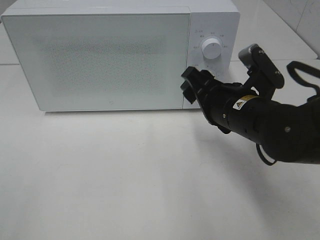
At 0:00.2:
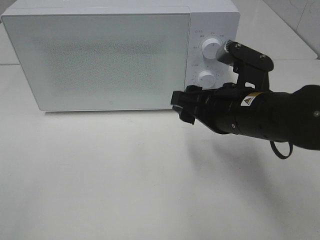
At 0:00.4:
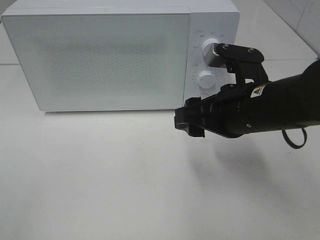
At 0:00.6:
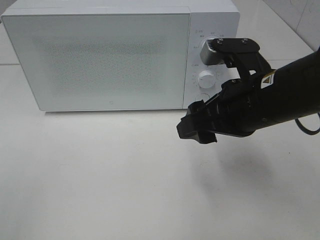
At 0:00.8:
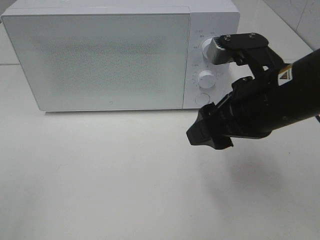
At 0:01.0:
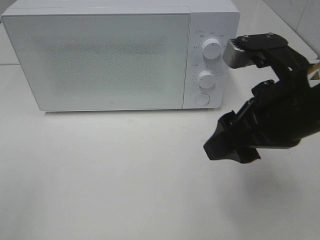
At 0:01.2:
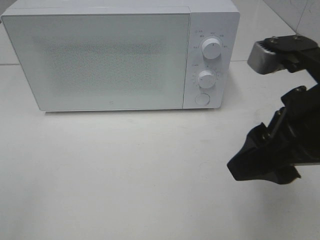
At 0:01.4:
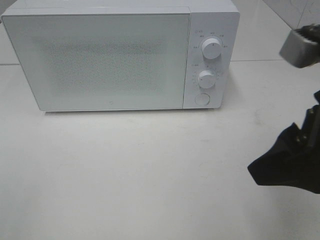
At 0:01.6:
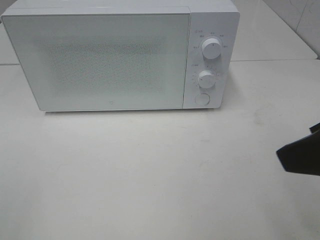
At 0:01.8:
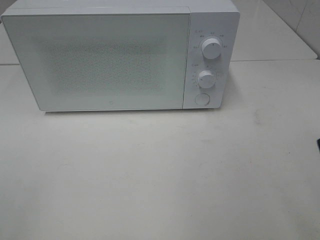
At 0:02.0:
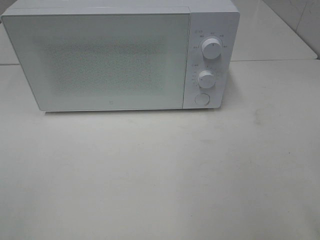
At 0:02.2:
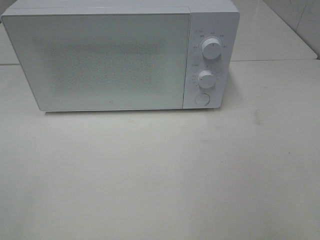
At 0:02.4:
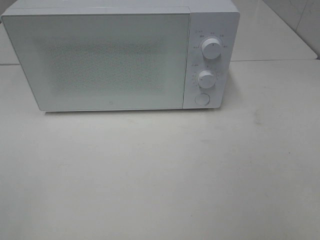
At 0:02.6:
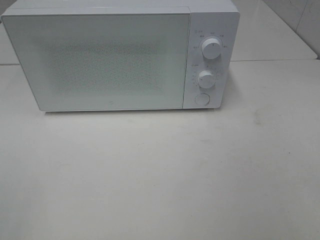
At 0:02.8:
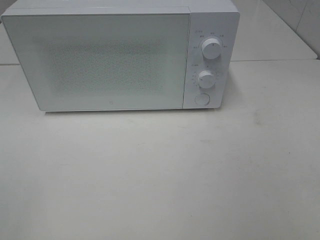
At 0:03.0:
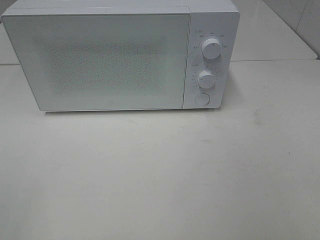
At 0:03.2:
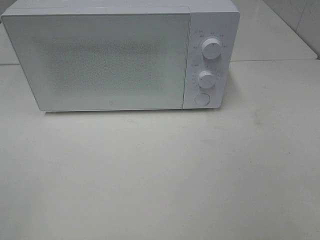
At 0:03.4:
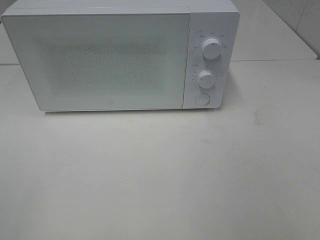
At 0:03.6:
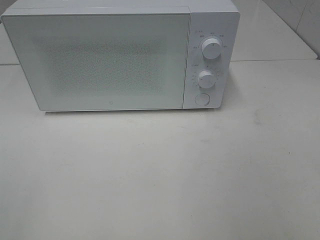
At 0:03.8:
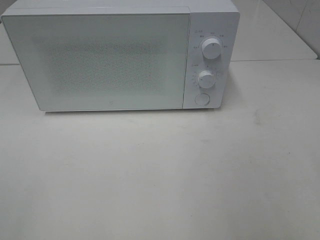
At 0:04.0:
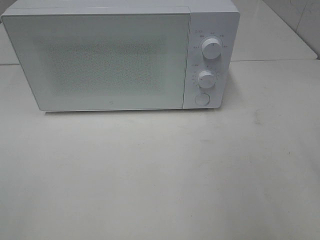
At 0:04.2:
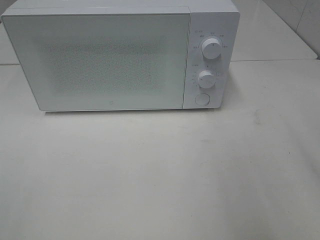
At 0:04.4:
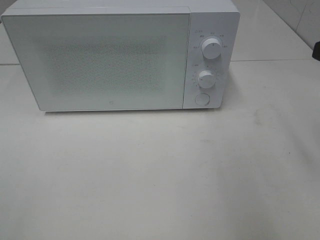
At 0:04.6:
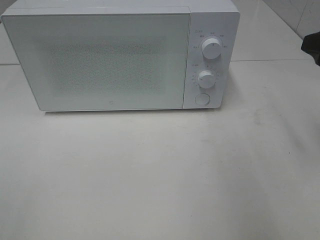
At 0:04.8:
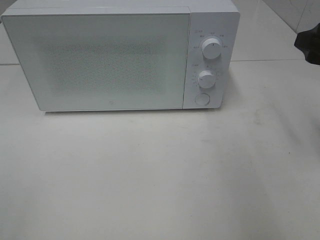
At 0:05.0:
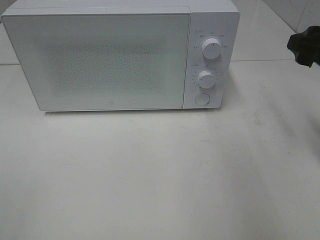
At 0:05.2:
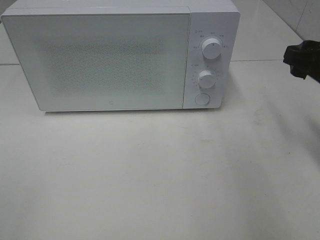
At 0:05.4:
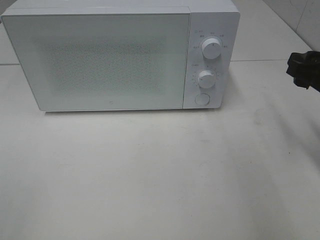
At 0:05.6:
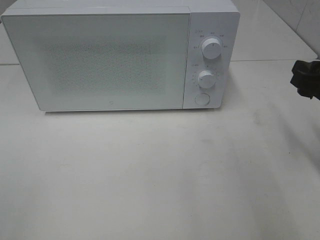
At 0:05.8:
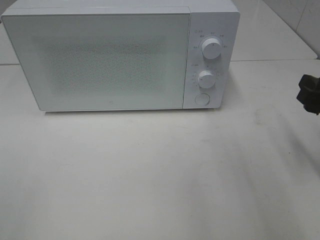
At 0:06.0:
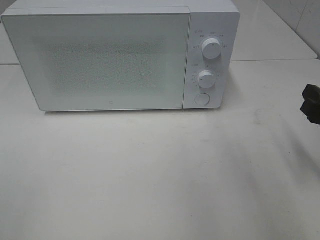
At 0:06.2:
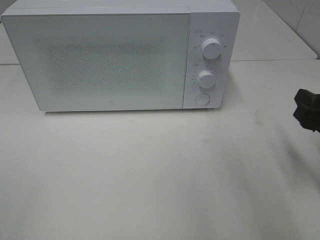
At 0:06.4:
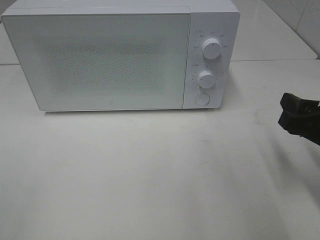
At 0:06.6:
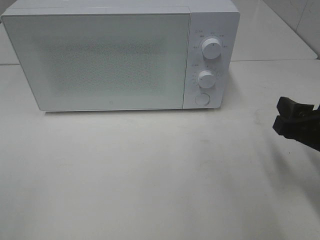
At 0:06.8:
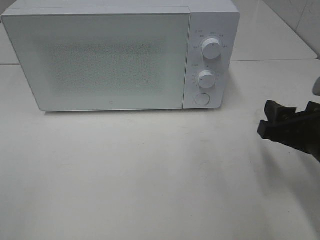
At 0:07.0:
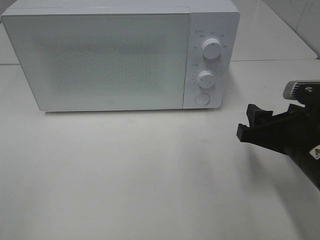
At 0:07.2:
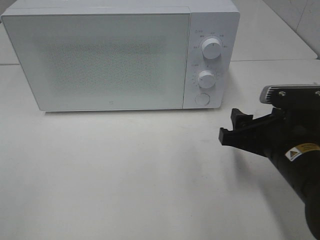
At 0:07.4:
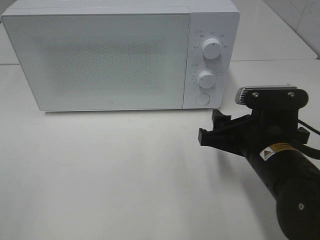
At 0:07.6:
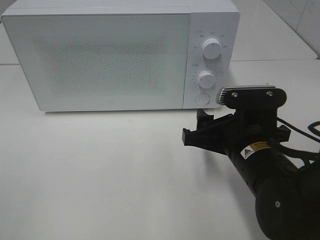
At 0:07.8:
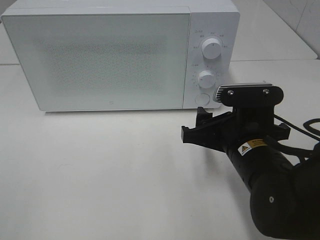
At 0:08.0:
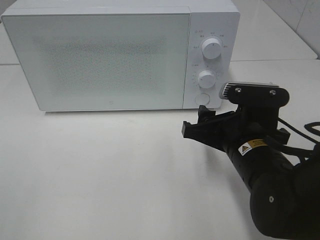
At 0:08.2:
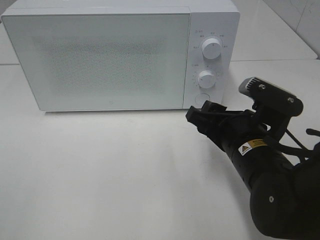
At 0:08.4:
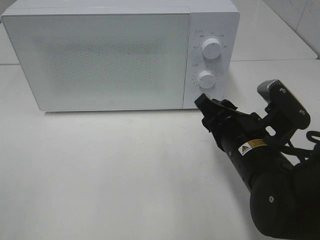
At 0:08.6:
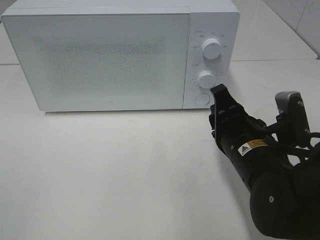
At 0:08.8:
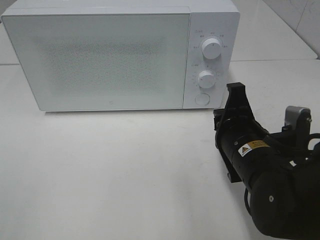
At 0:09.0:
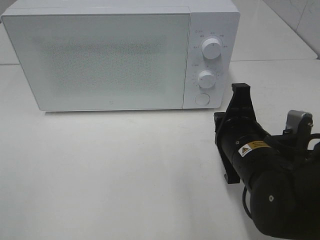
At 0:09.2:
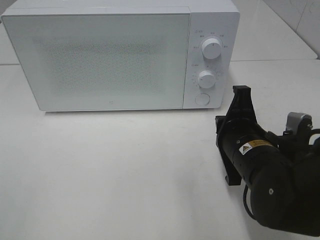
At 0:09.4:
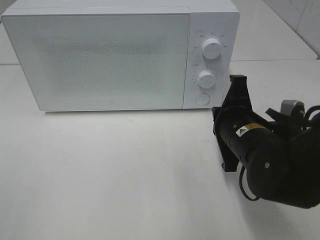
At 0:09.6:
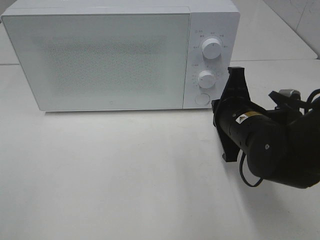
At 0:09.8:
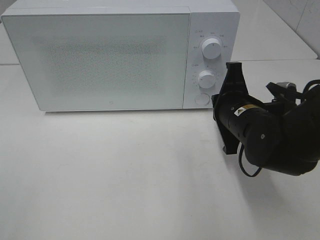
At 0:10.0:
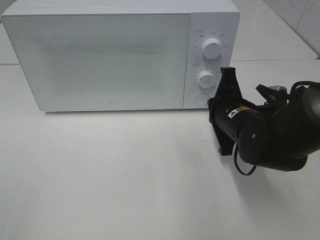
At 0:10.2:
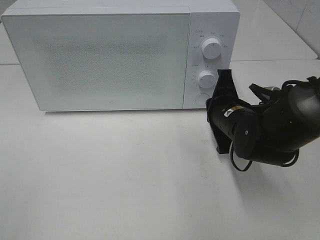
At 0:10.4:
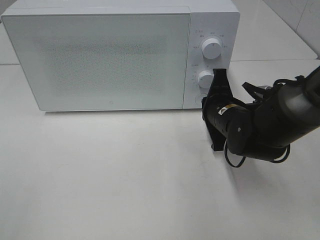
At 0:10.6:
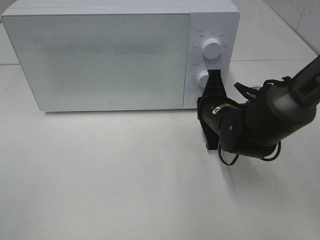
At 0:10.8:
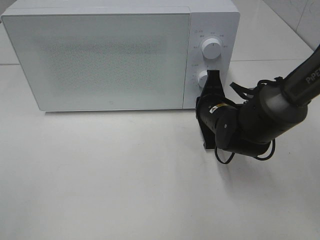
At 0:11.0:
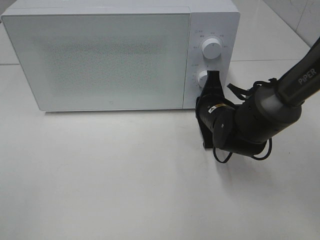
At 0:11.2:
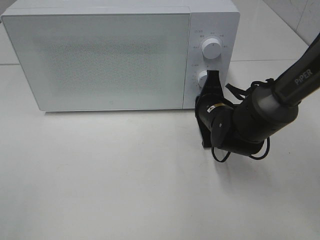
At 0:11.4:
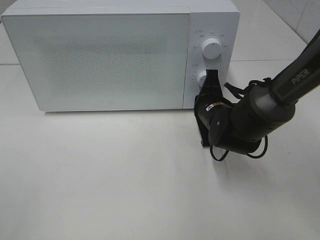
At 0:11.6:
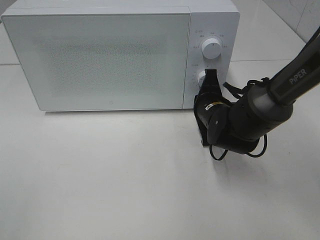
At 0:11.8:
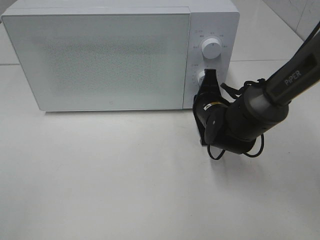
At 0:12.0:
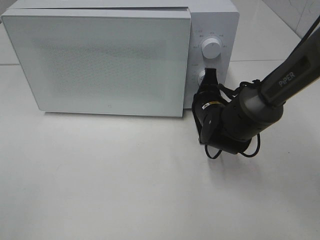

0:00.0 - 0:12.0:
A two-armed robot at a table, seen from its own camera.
Task of the whole recording: Heat the burger.
0:00.0 - 0:01.6: The right gripper heads backward, upward and to the right, covering roughly 20 cm.
0:01.6 - 0:03.0: The right gripper is displaced backward and to the right by approximately 15 cm.
0:04.4 - 0:06.0: The right gripper is displaced downward by roughly 10 cm.
0:06.0 - 0:07.6: The right gripper is displaced to the left by about 15 cm.
0:07.6 - 0:09.0: The right gripper closes.
0:09.0 - 0:10.4: The right gripper moves forward, roughly 10 cm.
0:10.4 - 0:12.0: The grippers make only small movements.

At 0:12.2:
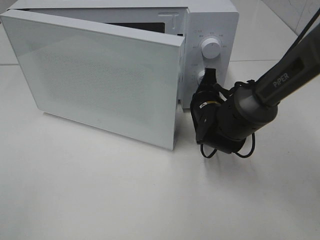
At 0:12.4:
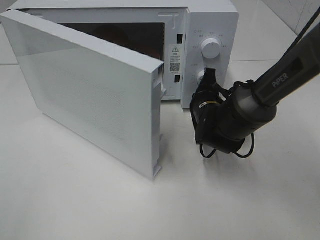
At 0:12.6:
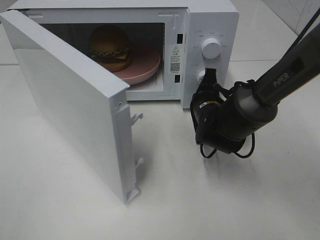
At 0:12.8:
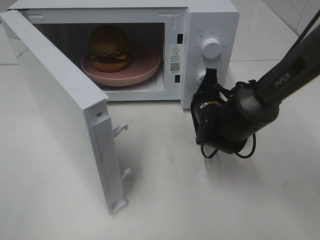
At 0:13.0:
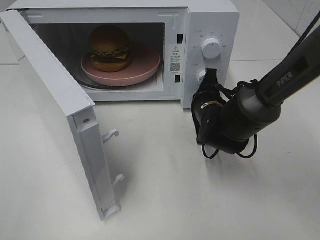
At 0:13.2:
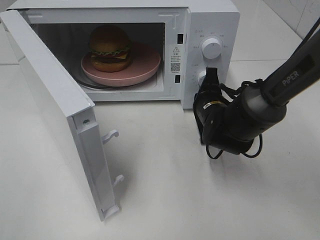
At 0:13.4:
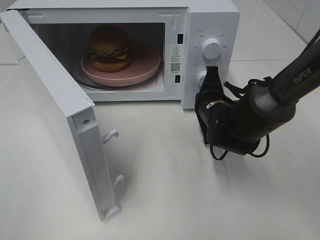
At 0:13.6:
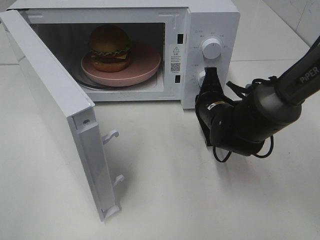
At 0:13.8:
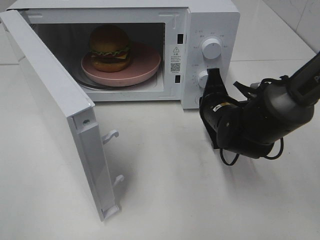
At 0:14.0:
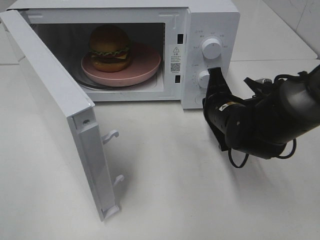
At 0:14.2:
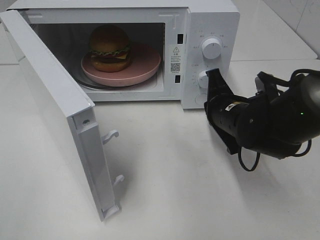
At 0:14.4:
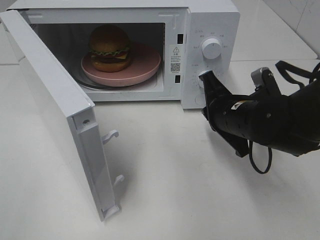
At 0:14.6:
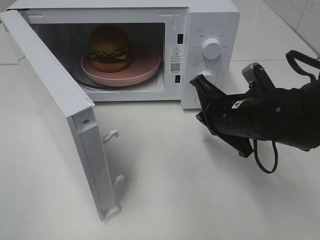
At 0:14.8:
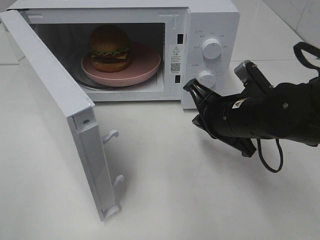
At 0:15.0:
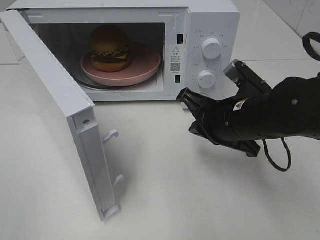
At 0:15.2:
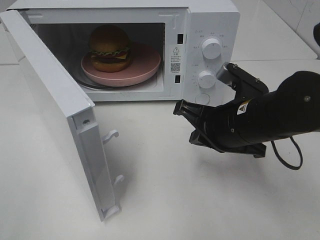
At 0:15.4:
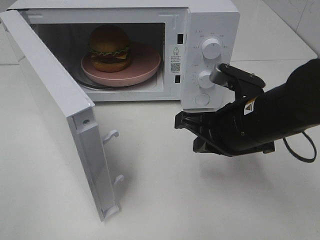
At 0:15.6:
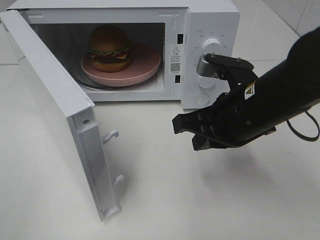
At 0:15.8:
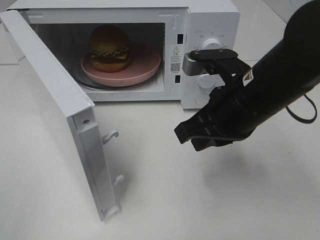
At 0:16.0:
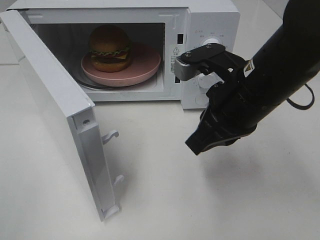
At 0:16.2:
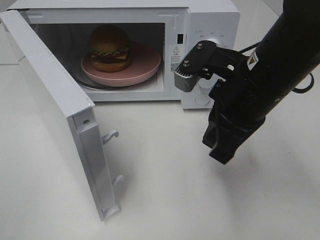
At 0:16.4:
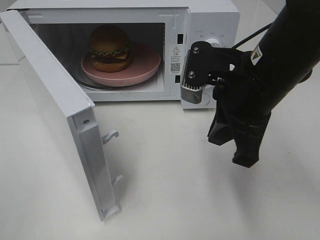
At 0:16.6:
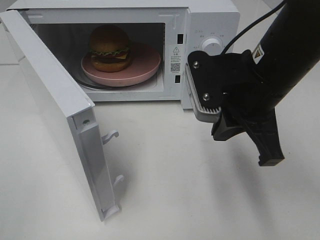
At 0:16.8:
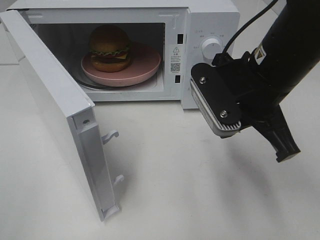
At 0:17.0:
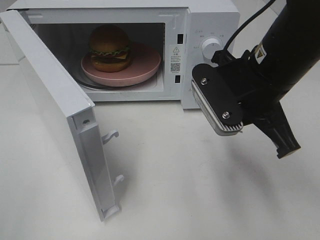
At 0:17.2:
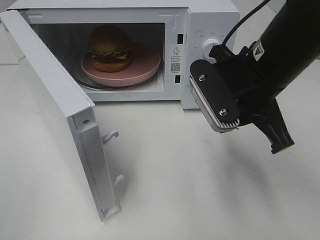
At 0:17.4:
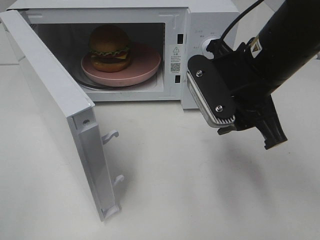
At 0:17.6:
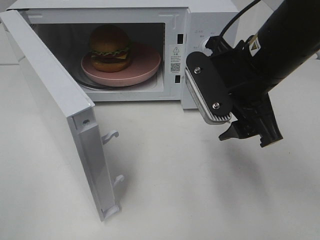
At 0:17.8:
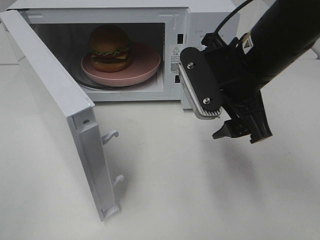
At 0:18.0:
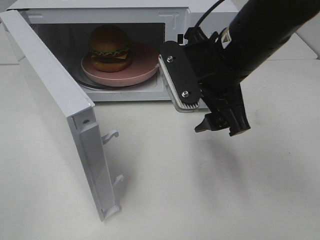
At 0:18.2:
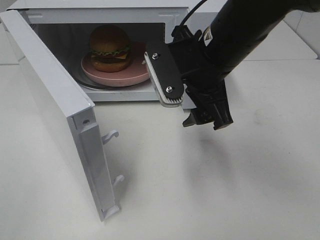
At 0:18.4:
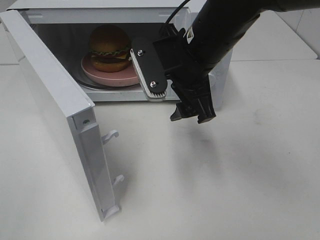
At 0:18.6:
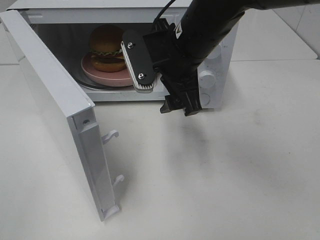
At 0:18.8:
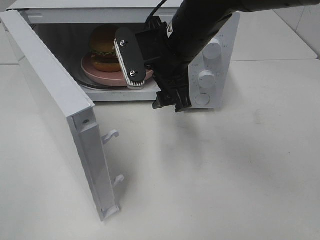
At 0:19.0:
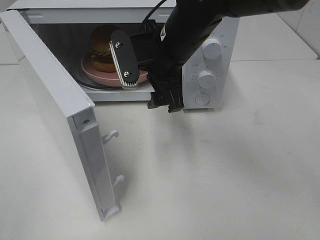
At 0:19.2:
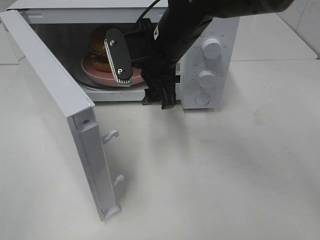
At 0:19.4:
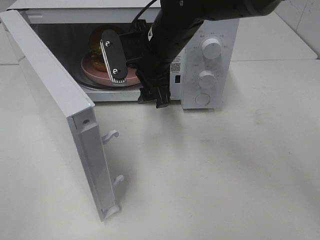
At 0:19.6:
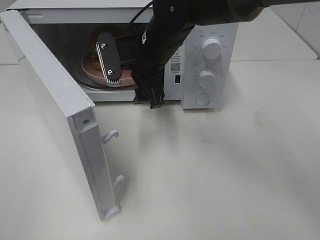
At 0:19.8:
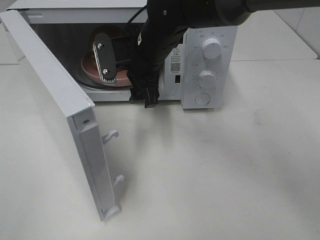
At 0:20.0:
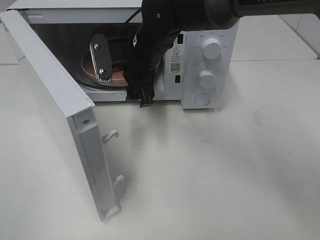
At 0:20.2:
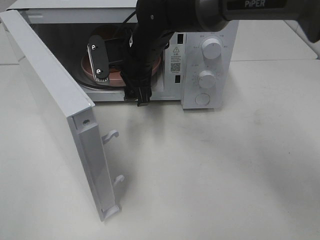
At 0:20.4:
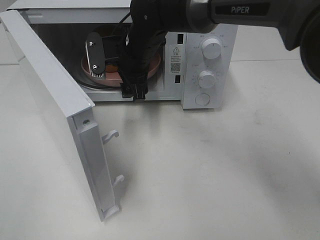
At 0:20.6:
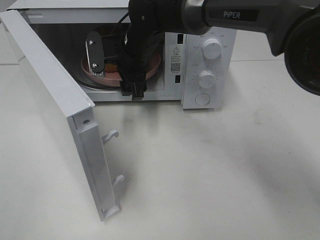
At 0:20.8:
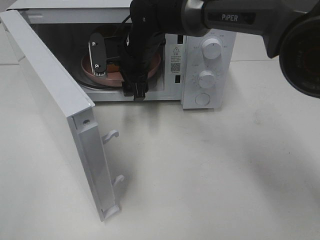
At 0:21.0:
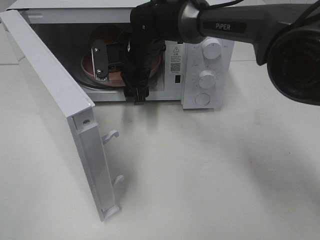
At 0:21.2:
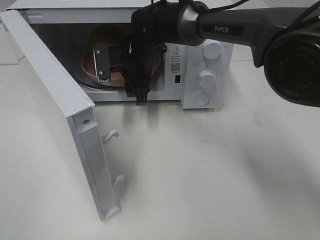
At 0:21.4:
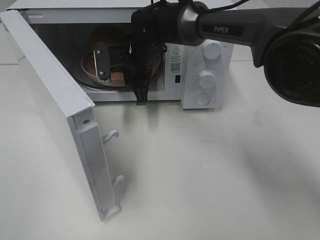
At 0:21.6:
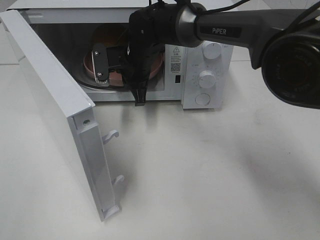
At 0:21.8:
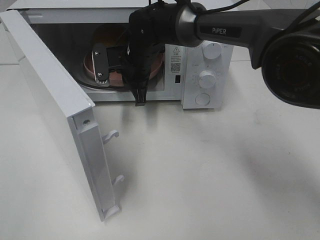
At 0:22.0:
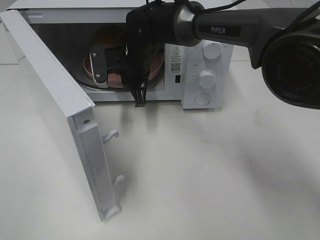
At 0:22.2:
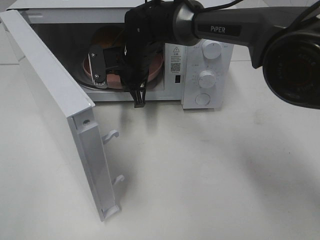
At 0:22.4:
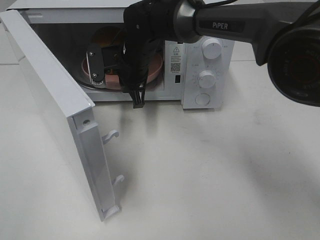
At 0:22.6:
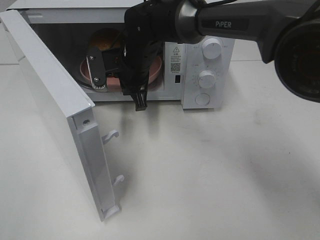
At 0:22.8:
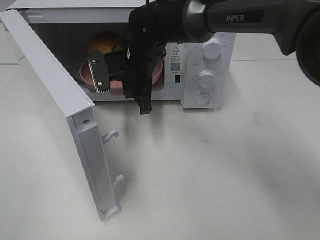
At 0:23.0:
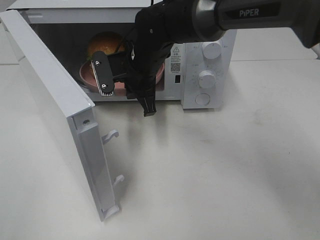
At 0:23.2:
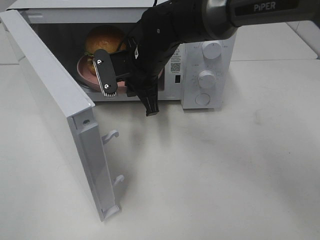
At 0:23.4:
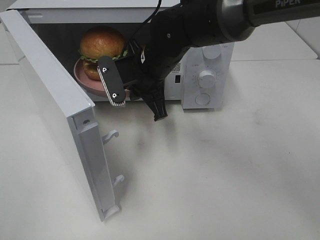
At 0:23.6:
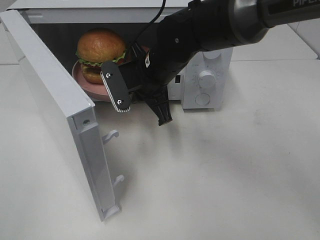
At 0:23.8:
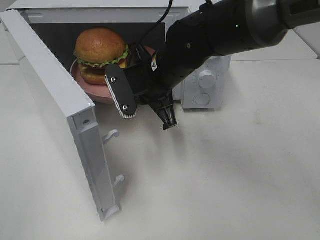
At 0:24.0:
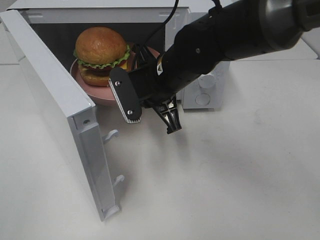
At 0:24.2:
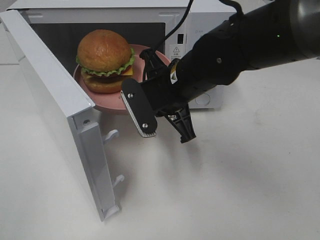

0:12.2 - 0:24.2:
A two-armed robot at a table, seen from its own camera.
Task of the whole recording: Heat the burger.
Step, 0:14.0 - 0:21.4: Right hand: grab the plate with the hamburger.
0:13.8 - 0:15.2: The right gripper travels backward and upward by about 10 cm.
0:15.2 - 0:16.6: The right gripper shifts approximately 10 cm upward.
0:16.6 - 0:18.2: The right gripper changes place by some 5 cm, and opens up.
0:18.2 - 0:19.8: The right gripper heads forward and to the left, covering approximately 15 cm.
0:19.8 - 0:21.2: The right gripper is displaced forward by approximately 5 cm.
0:21.2 - 0:22.6: The right gripper closes.
0:22.6 - 0:24.2: The right gripper moves backward and to the right, approximately 15 cm.
